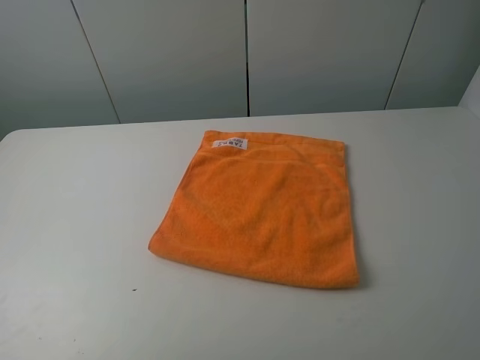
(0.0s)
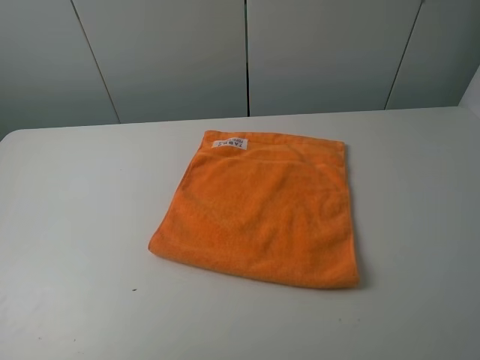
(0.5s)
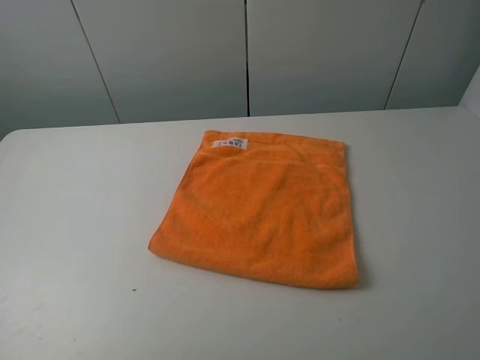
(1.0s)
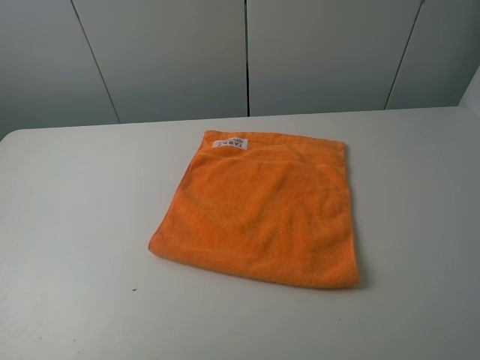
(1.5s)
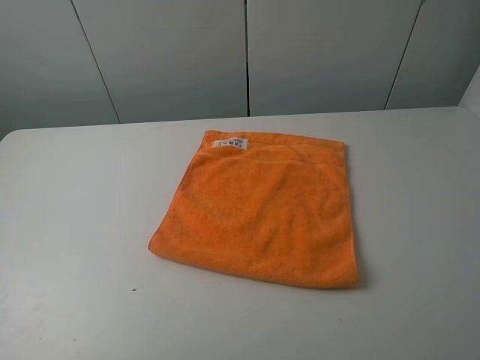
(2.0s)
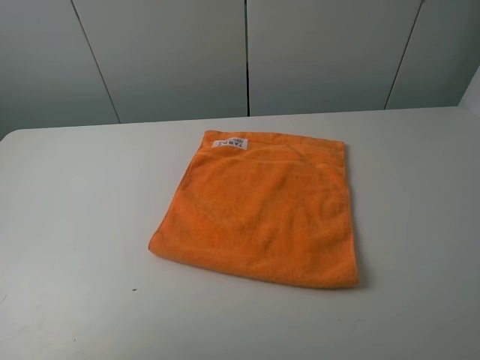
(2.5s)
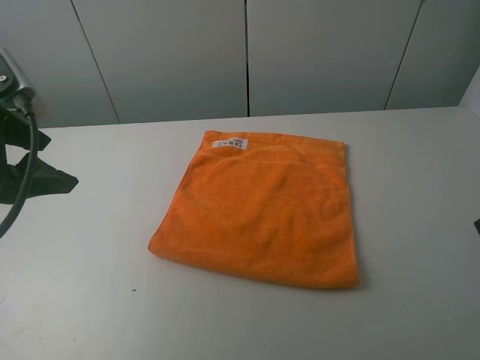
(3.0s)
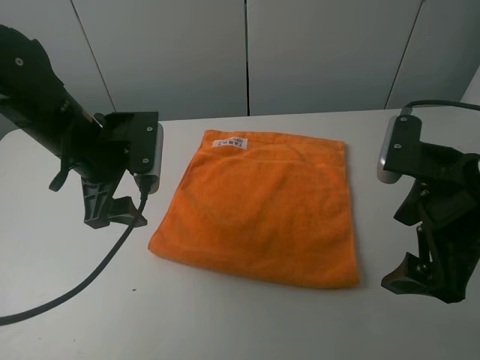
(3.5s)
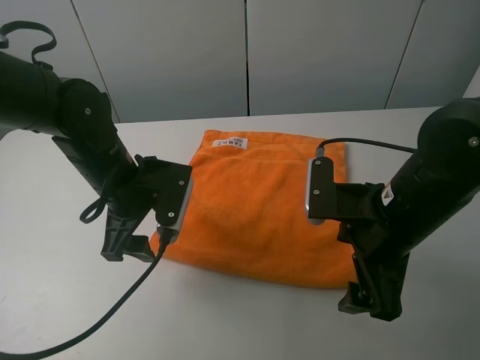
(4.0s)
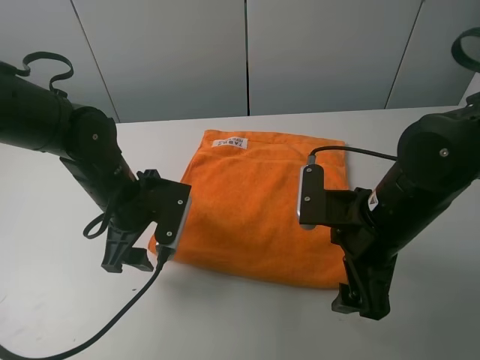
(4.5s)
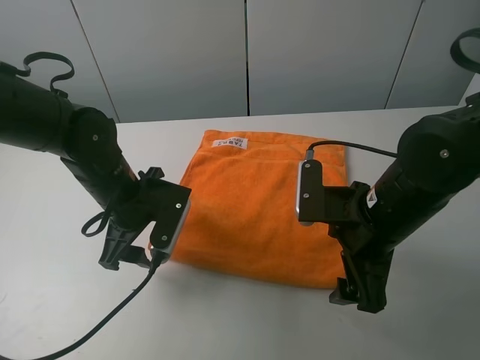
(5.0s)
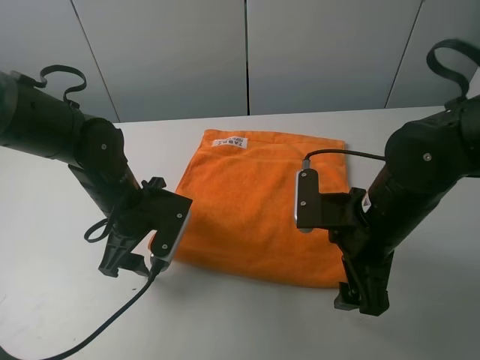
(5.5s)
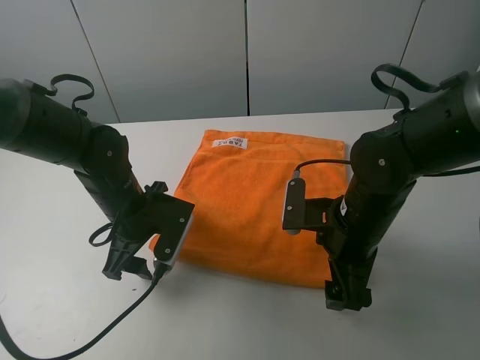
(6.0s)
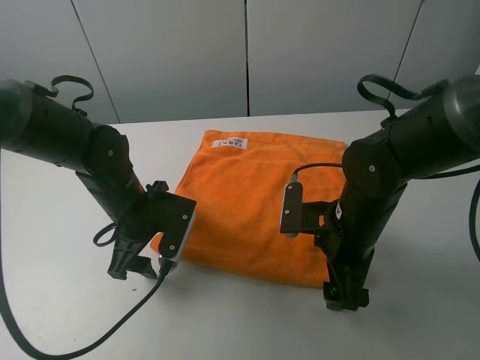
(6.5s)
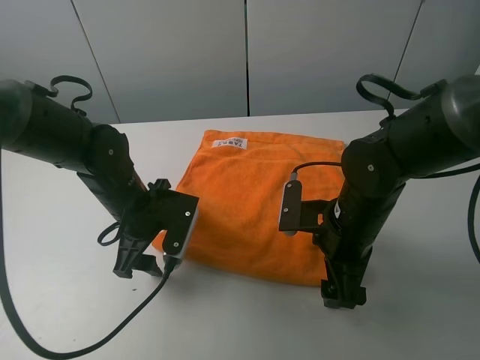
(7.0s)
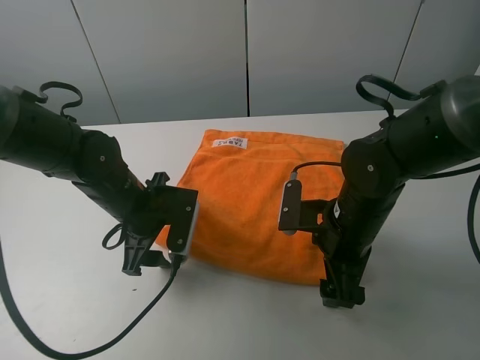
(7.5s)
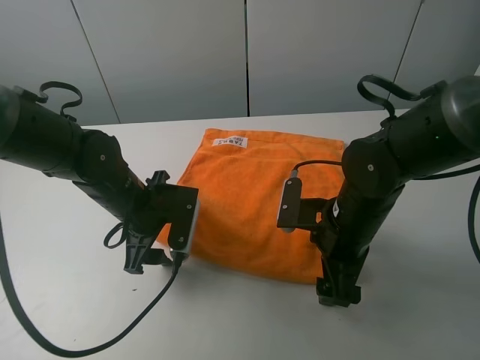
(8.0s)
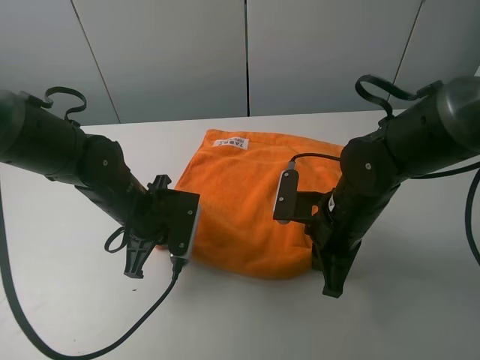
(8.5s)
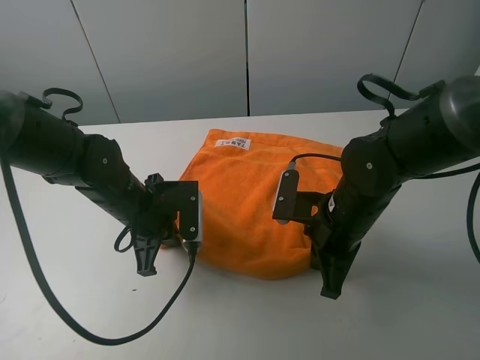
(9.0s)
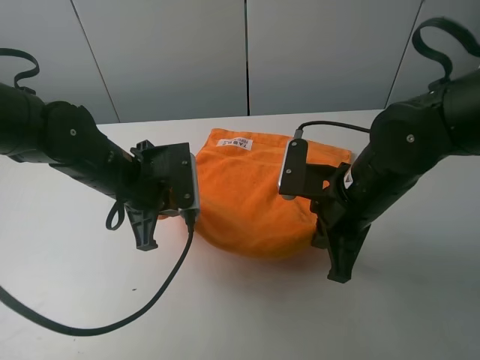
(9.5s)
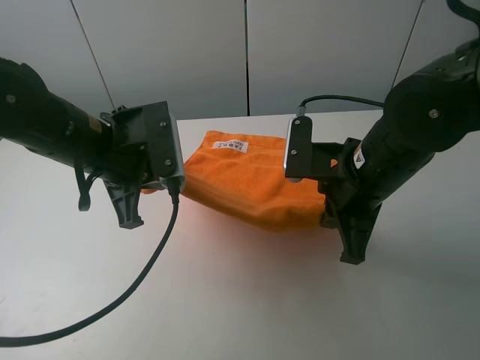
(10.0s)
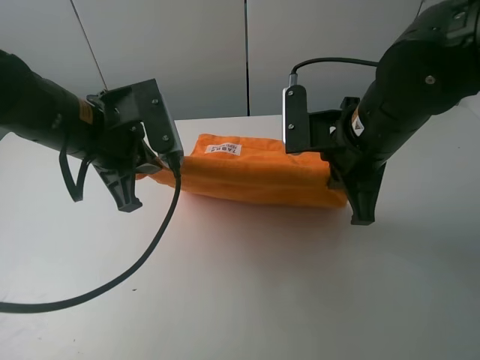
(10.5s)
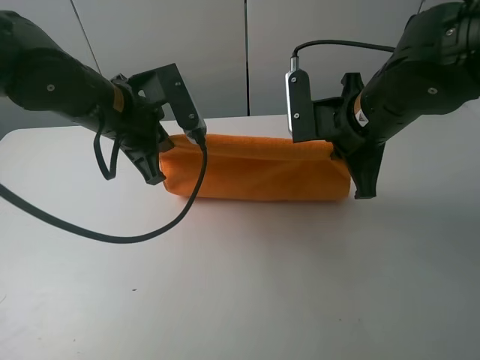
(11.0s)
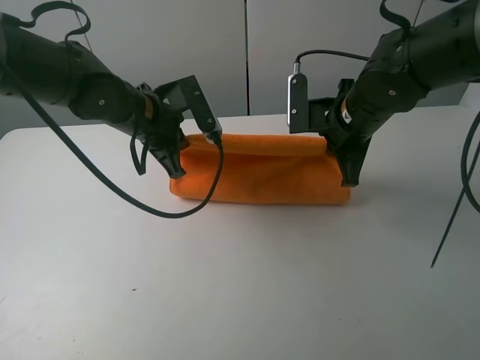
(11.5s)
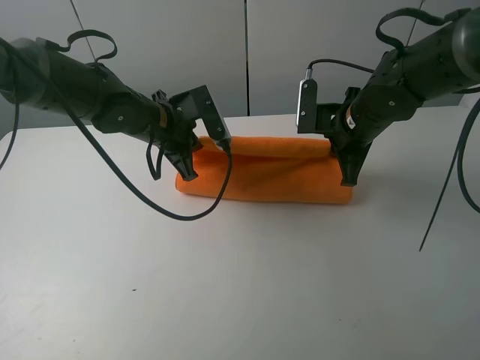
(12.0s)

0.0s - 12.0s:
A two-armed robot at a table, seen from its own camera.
Task of the whole recording: fold the towels on the table.
Step, 0.0s - 8.5s: Grasp the orange towel with the left gripper.
0.0s - 2.0s: Both grippers stay put.
2.0s - 4.0s: The right gripper travels forward, to the left and downward by roughly 25 cm; the left gripper heads forward, to the right and downward, covering about 35 cm.
4.0s - 6.0s: Both grippers travel together downward, approximately 5 cm.
6.0s - 8.0s: There are only small adjustments of the grippers.
8.0s - 10.0s: The grippers both shift upward by roughly 10 cm. The left gripper closes up. The right gripper closes up.
10.0s - 12.0s: The right gripper moves forward, roughly 15 cm. Meanwhile the left gripper goes approximately 15 cm forward and downward.

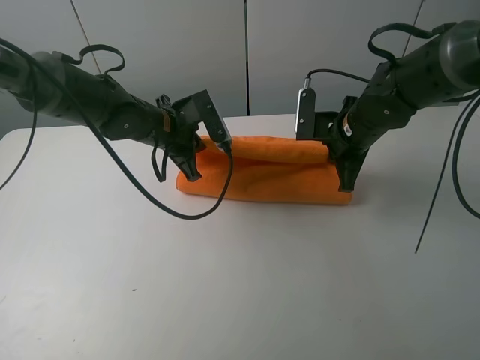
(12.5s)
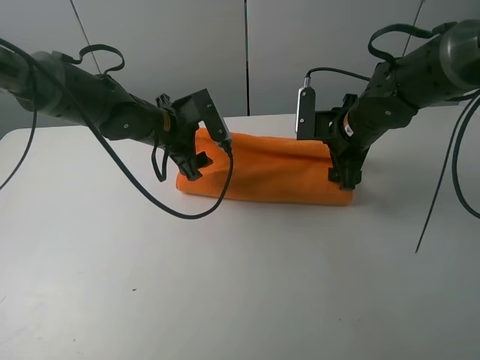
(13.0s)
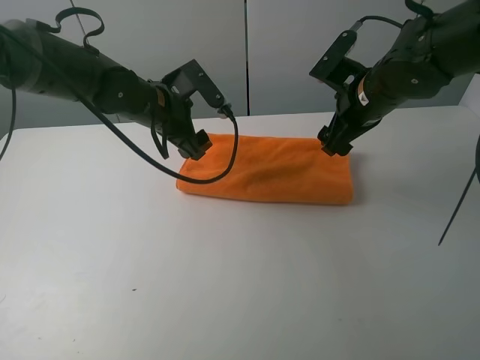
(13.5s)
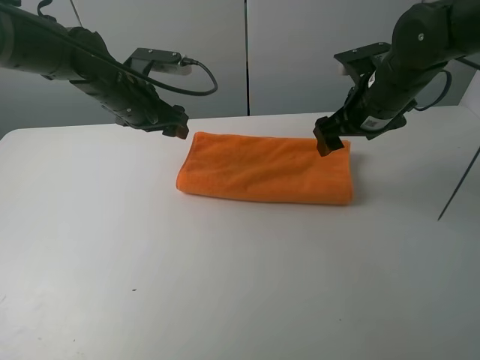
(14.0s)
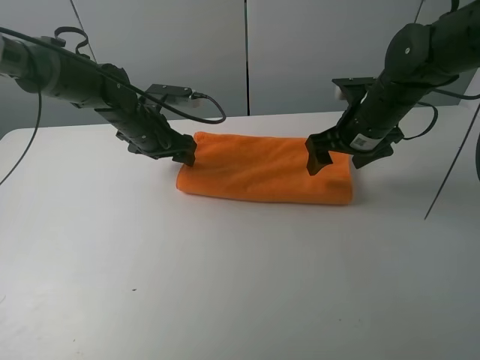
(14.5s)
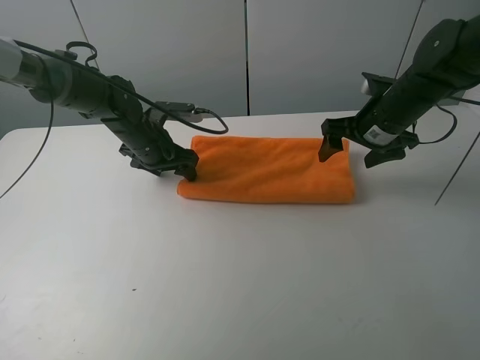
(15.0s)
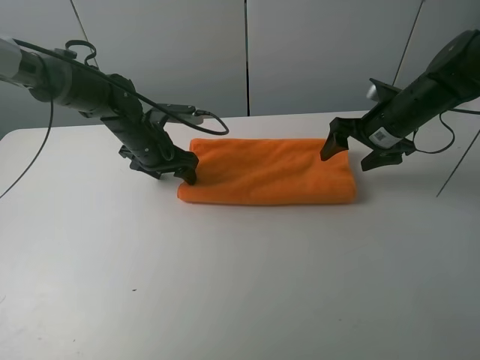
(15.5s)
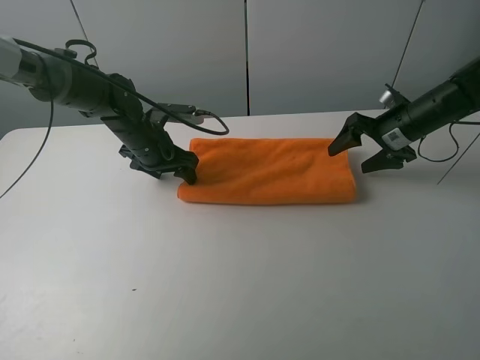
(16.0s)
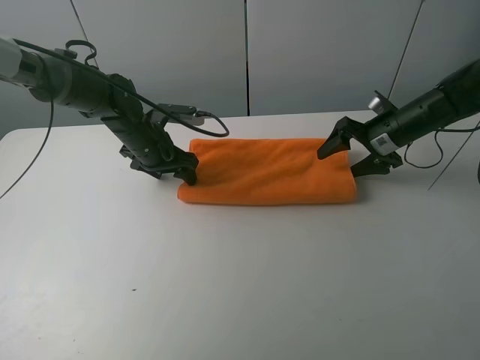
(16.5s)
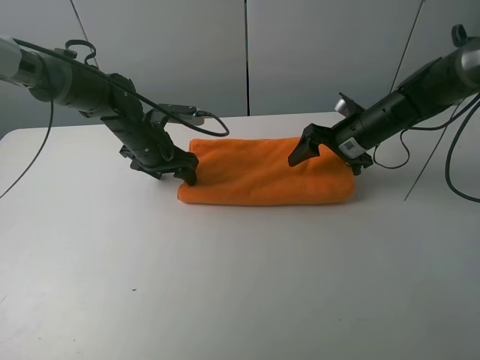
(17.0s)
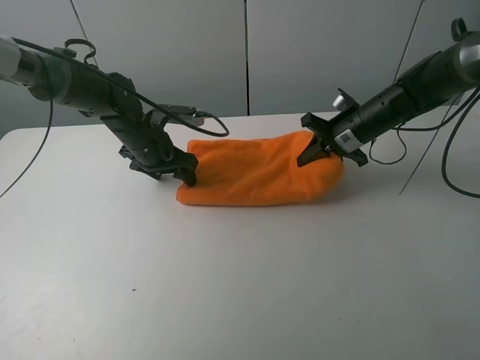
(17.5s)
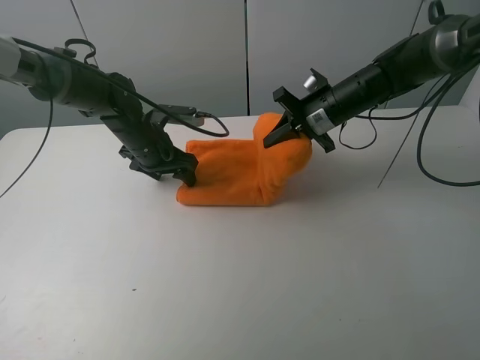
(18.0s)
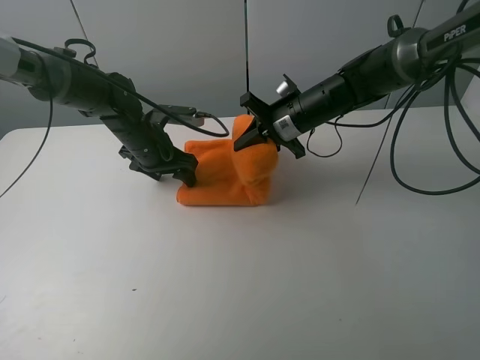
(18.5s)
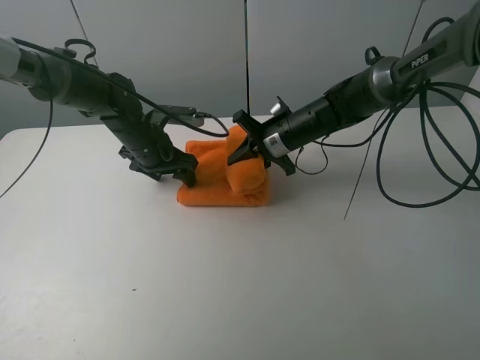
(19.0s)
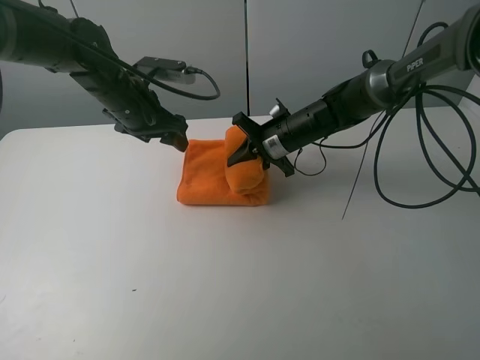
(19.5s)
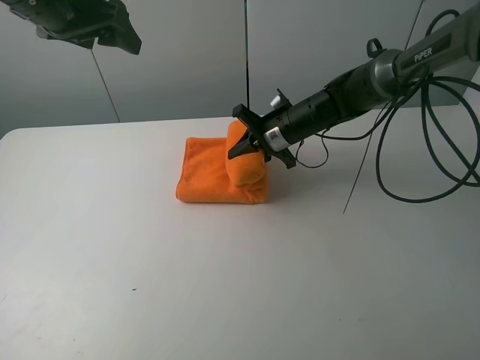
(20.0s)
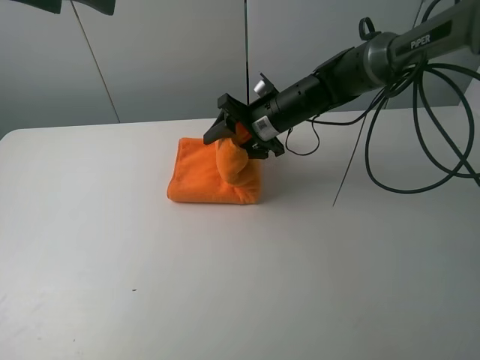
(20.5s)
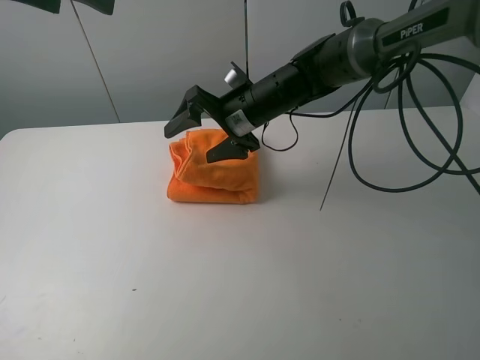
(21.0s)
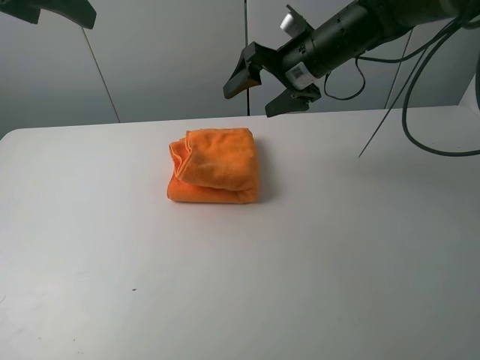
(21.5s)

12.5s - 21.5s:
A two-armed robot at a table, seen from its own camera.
Task of the whole recording: fold the towels on the table.
Step, 14.0s - 15.5s: Press on the orange towel with the left gripper.
Step, 16.0s - 21.0s: Fold the orange towel from right to left with right gripper.
12.5s - 14.5s: The right gripper opens up. Meanwhile the left gripper changes place by some 5 cm, and opens up.
14.5s - 17.0s: The right gripper travels downward by about 5 cm, and travels to the right and back again, about 10 cm each way.
17.0s - 19.5s: The left gripper moves upward, some 10 cm. The right gripper is displaced to the left by approximately 10 cm, and closes up.
19.5s - 21.5s: The right gripper travels upward by some 15 cm, and opens its fingers, while the left gripper moves upward and backward, approximately 20 cm.

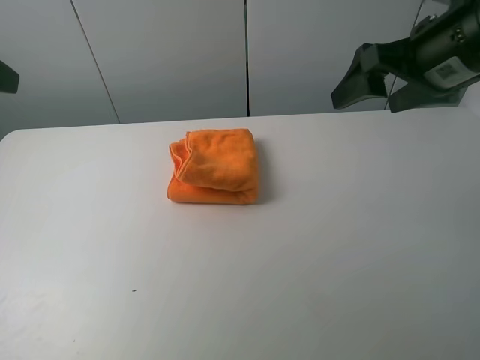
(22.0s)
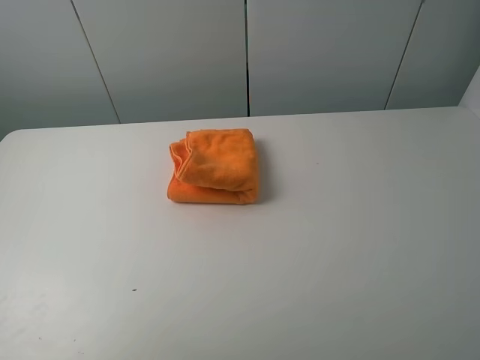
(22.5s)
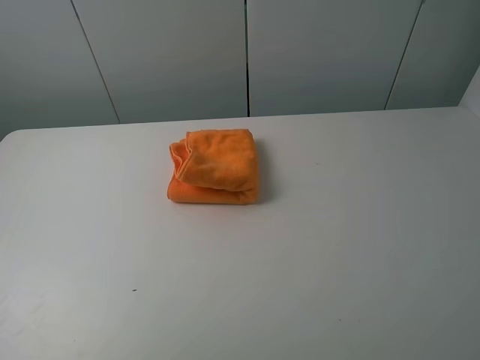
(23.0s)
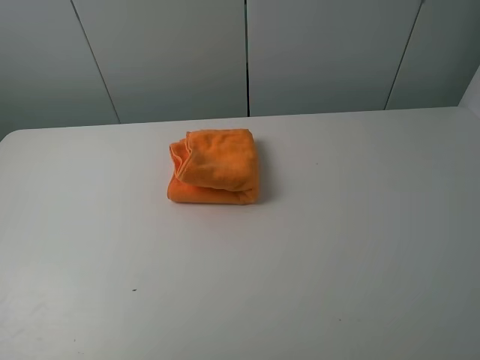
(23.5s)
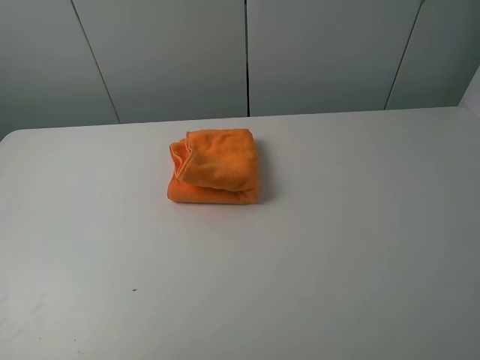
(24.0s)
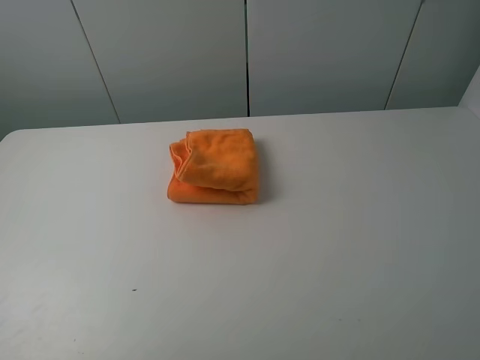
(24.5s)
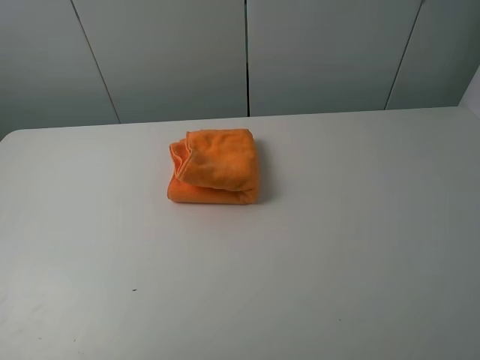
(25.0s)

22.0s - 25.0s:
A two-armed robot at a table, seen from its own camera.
Task of the whole recording: fold the towels on the table.
22.0s - 23.5s: The right gripper heads backward, covering approximately 25 cm. Meanwhile the left gripper moves backward and downward, about 20 cm.
